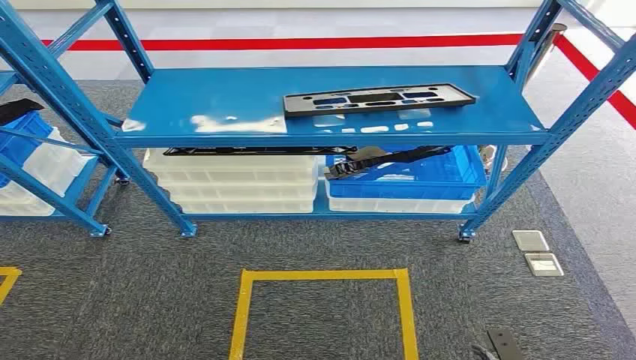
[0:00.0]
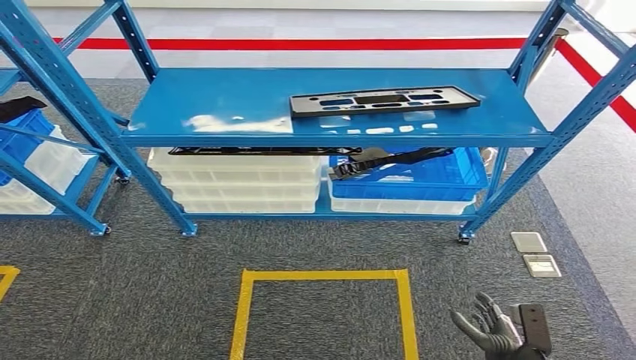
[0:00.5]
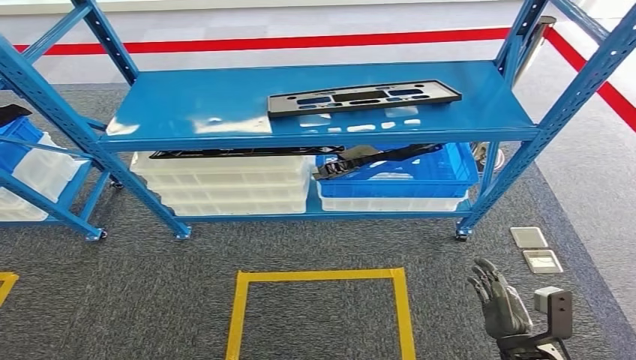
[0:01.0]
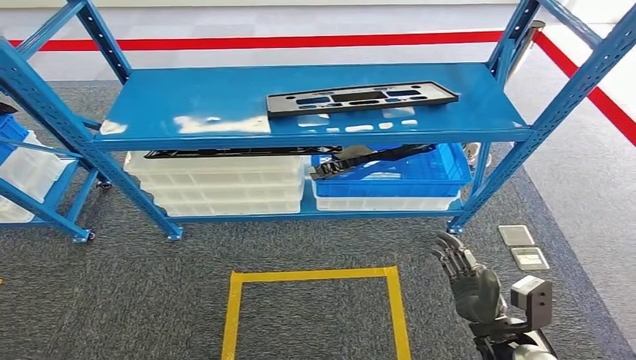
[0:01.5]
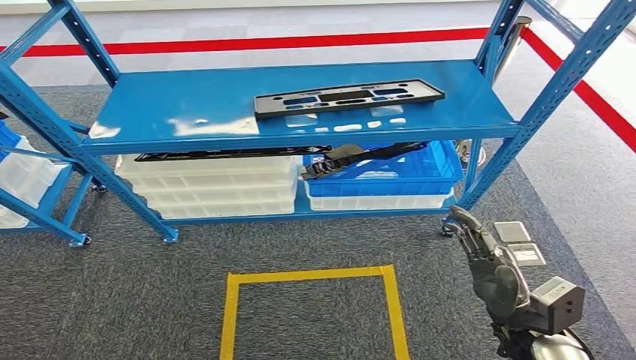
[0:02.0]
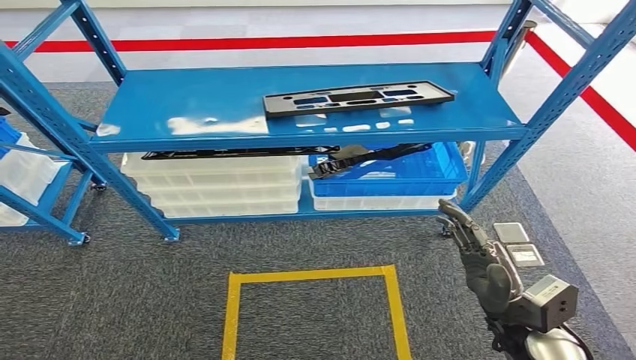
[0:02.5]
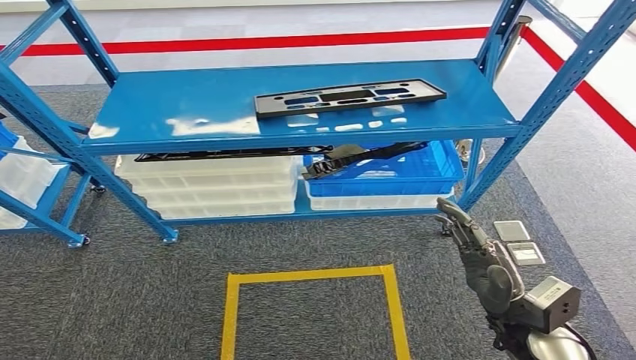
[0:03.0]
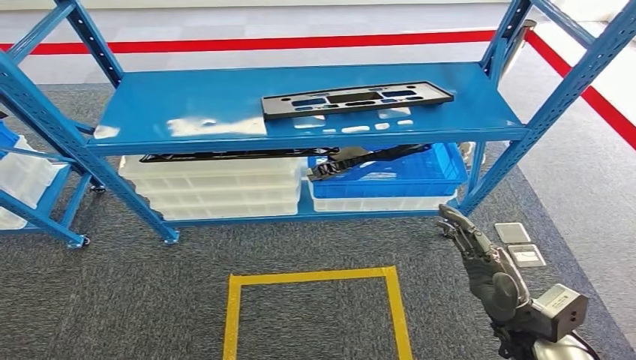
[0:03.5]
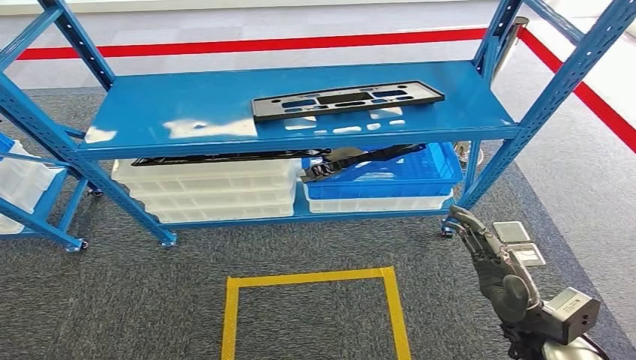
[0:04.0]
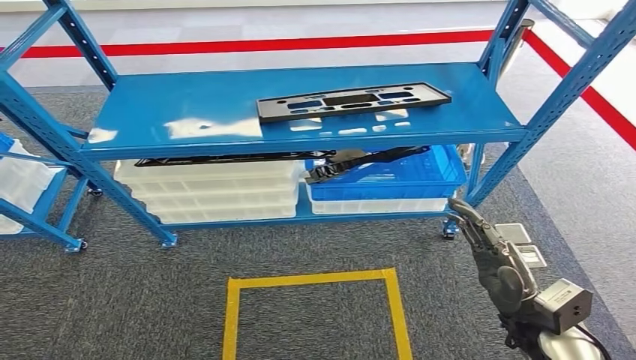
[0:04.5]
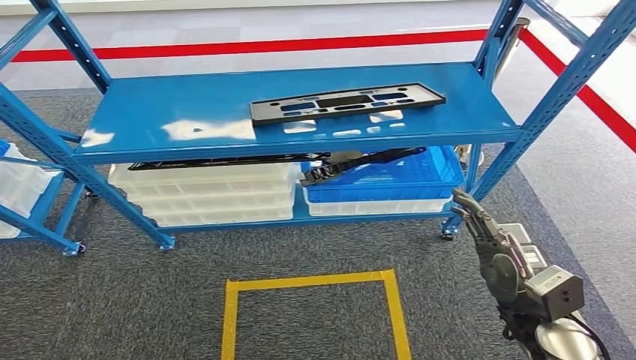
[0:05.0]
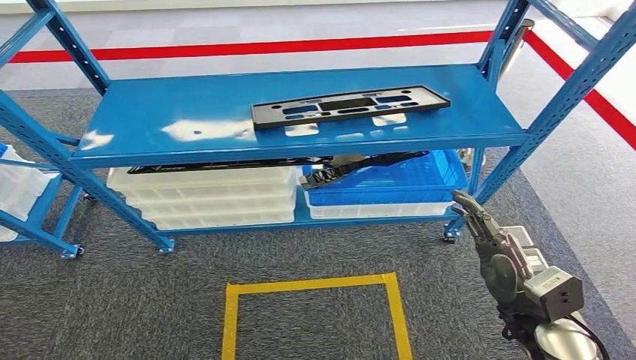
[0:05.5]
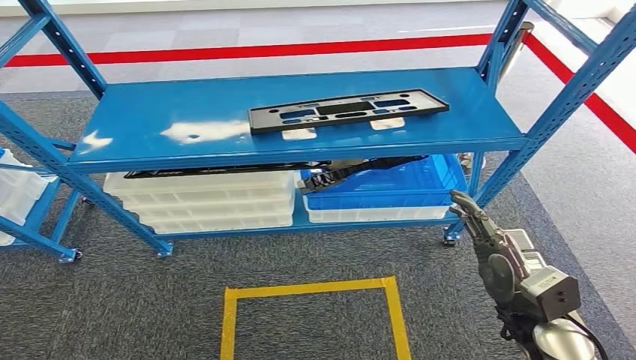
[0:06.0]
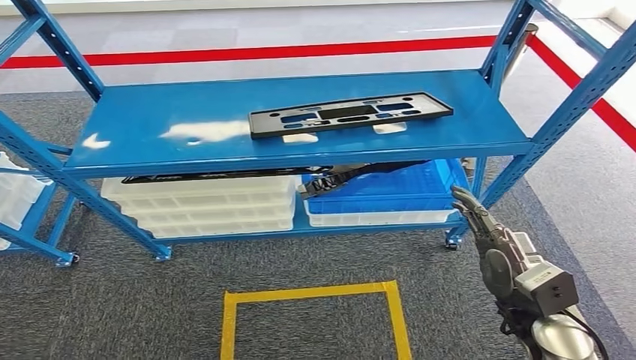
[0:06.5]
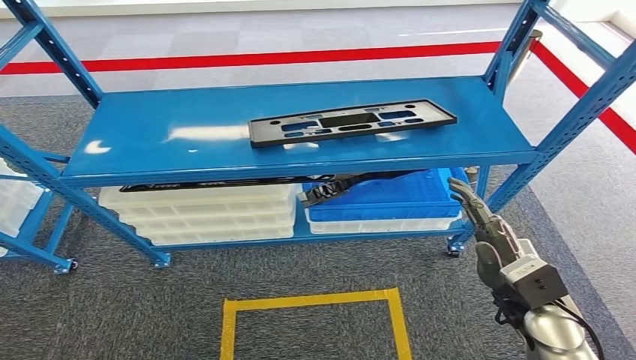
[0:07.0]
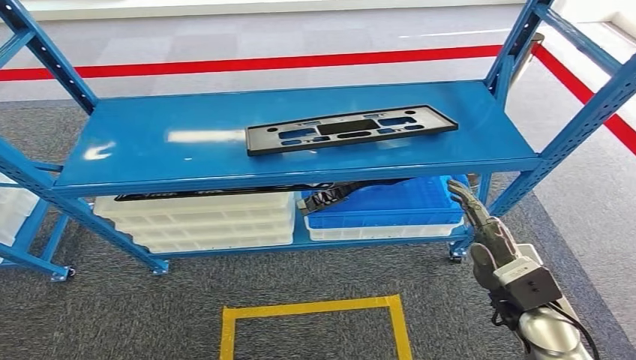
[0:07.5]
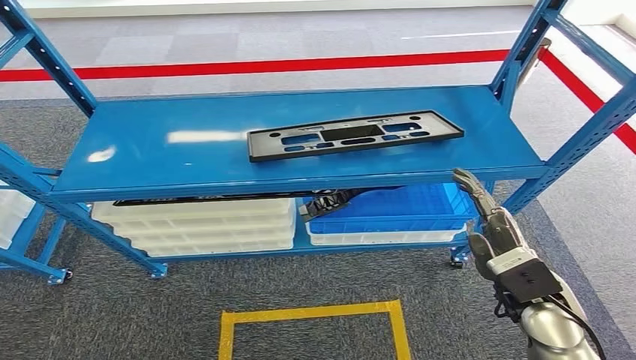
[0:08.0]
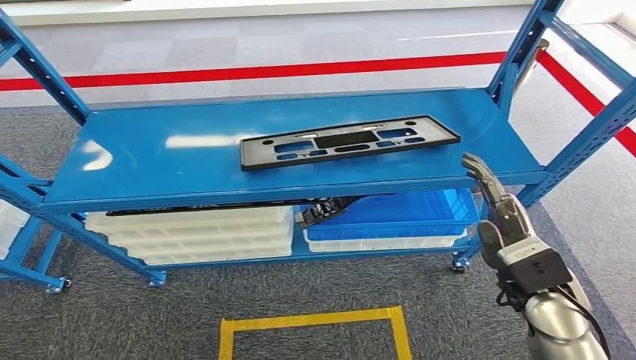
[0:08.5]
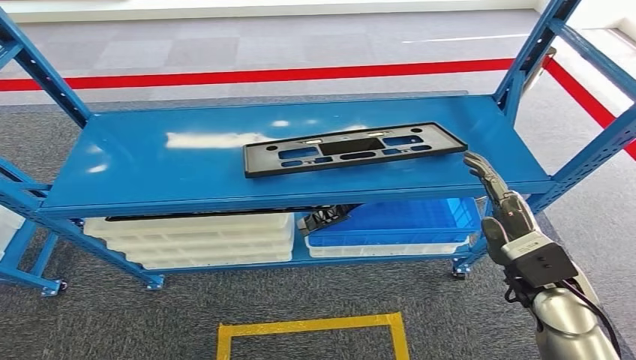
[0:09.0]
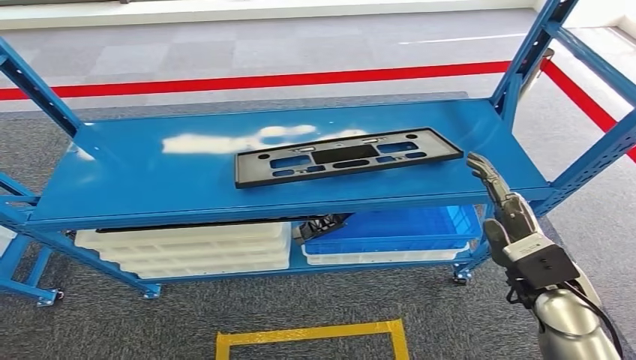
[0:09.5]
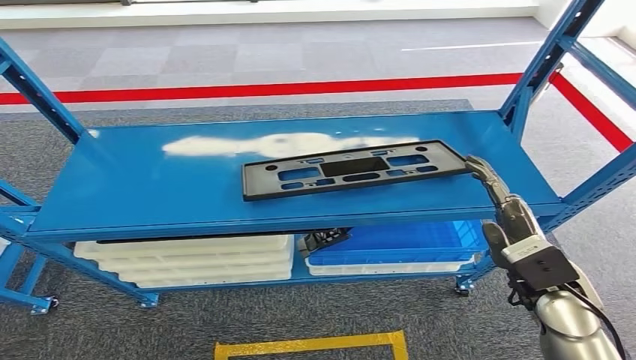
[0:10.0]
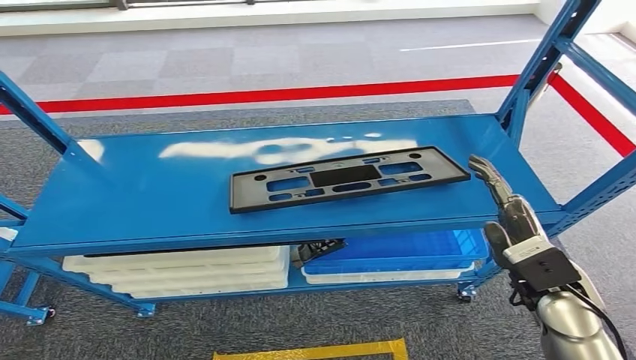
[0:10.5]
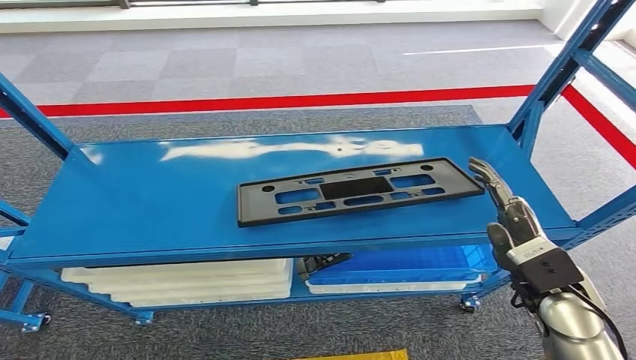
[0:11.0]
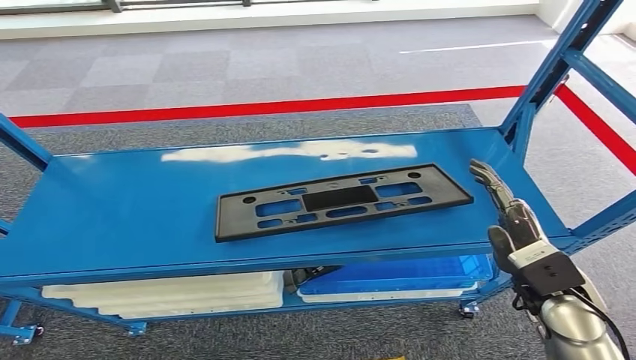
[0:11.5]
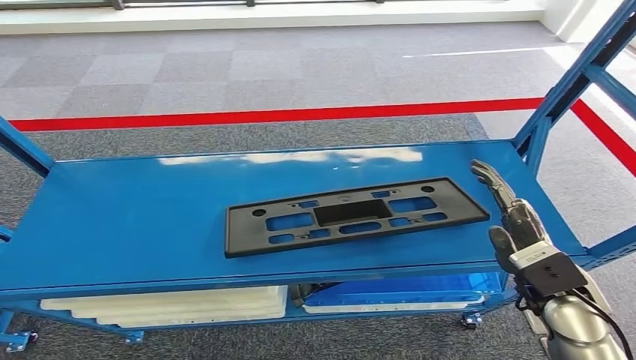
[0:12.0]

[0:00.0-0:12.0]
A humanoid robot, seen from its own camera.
0:02.0 to 0:04.0: The hands make only small movements.

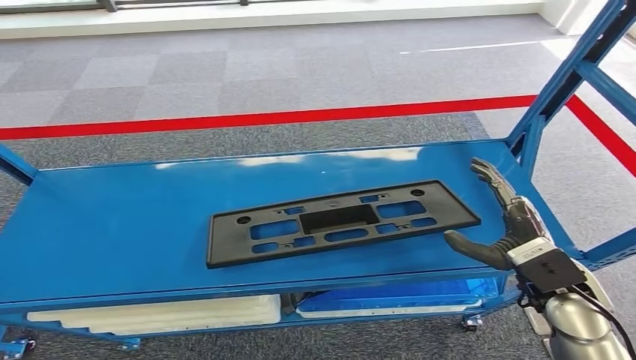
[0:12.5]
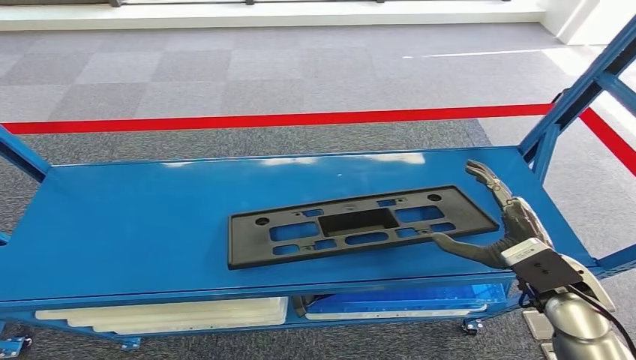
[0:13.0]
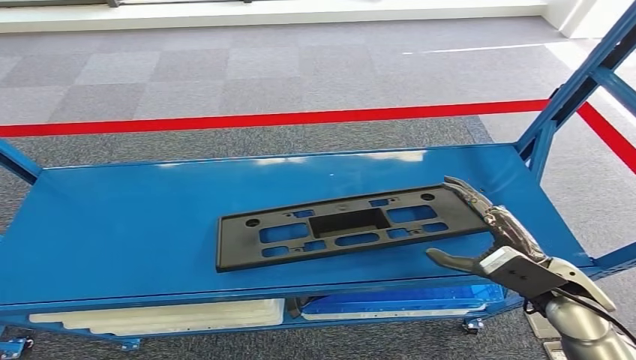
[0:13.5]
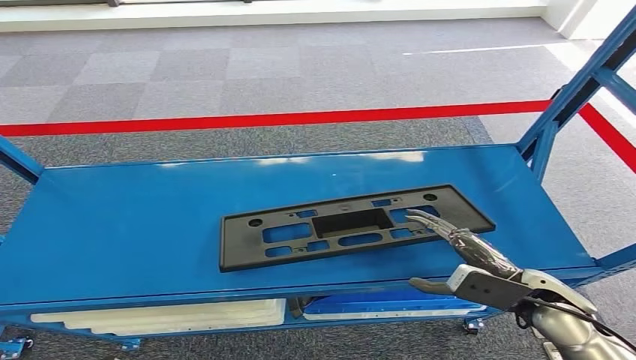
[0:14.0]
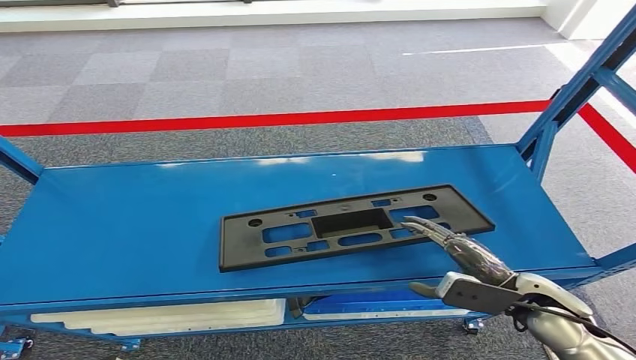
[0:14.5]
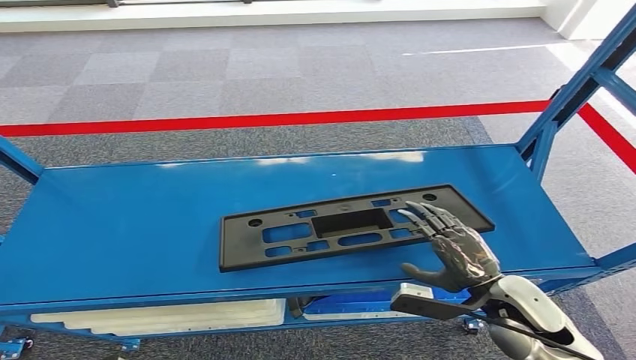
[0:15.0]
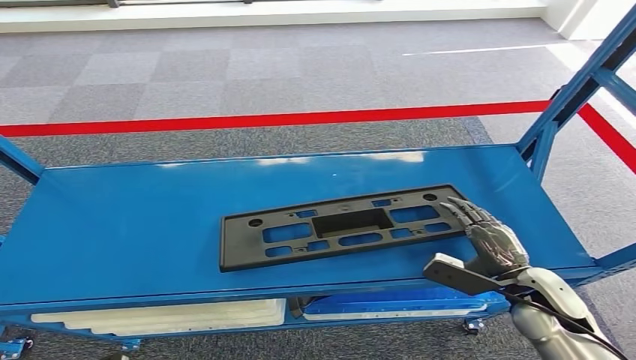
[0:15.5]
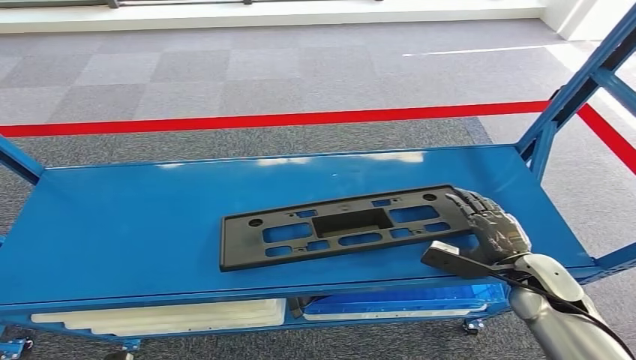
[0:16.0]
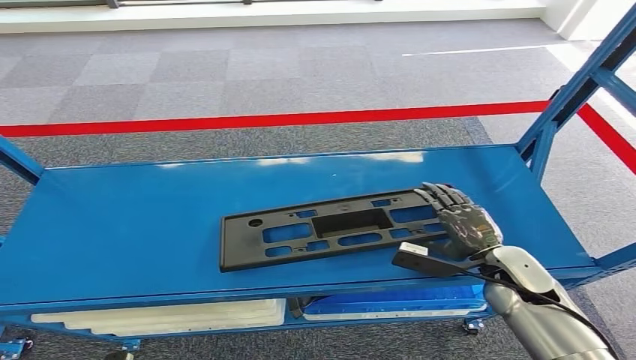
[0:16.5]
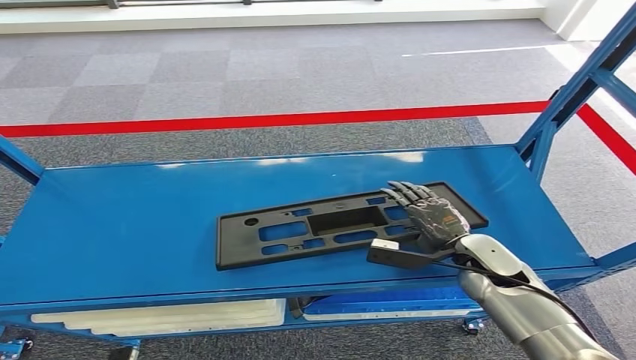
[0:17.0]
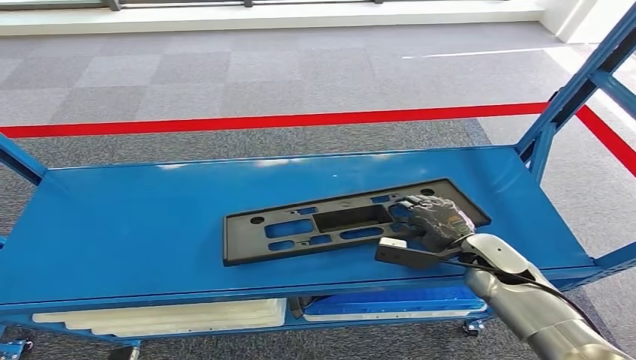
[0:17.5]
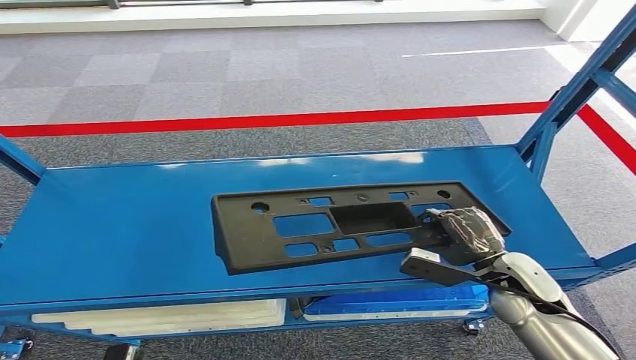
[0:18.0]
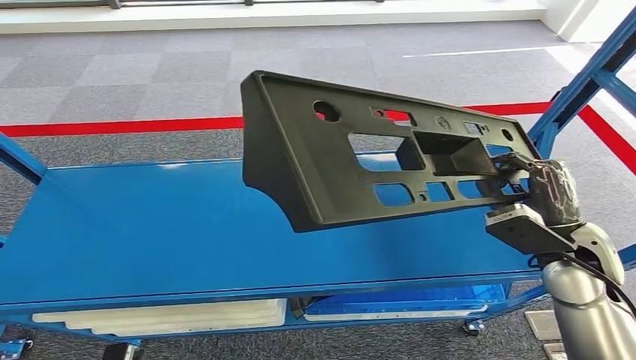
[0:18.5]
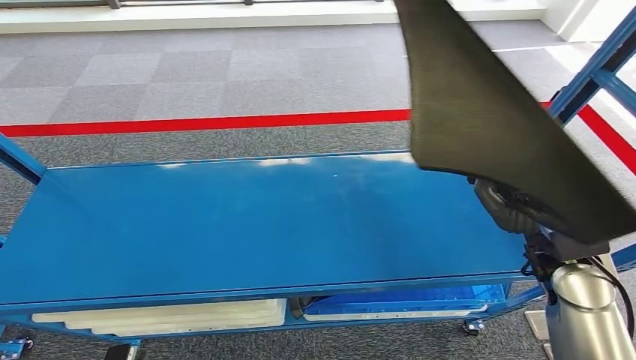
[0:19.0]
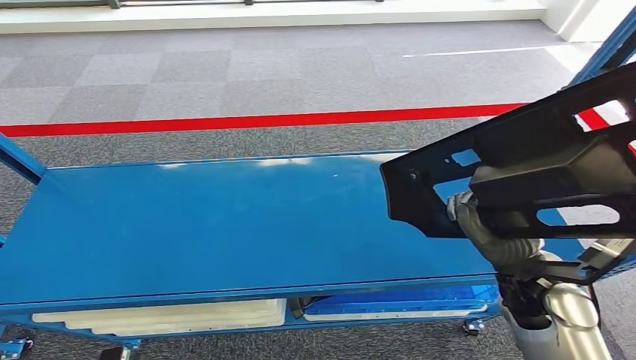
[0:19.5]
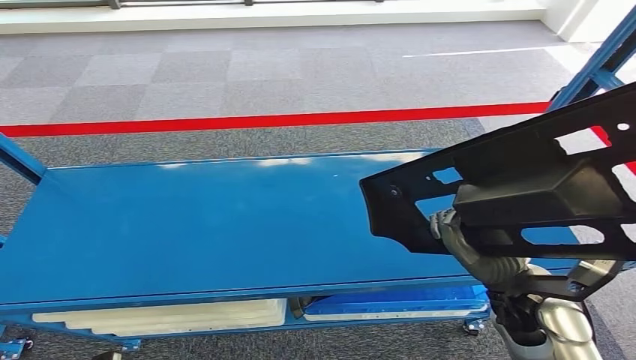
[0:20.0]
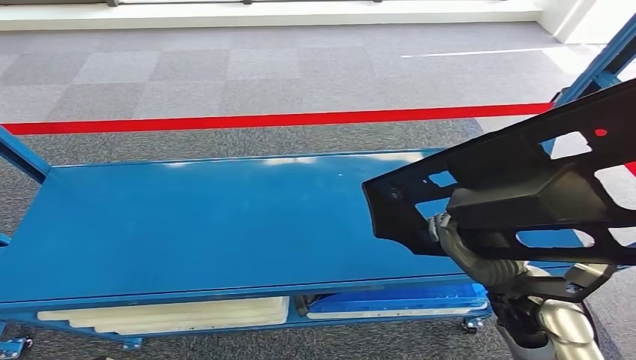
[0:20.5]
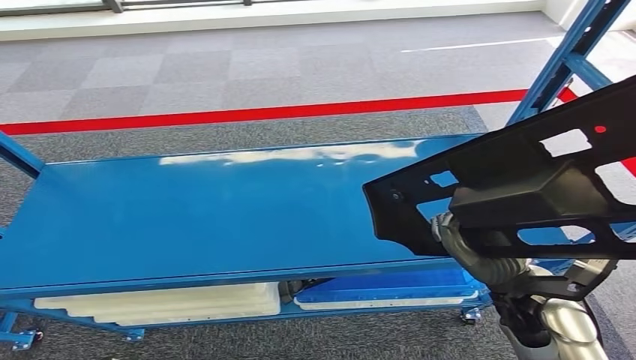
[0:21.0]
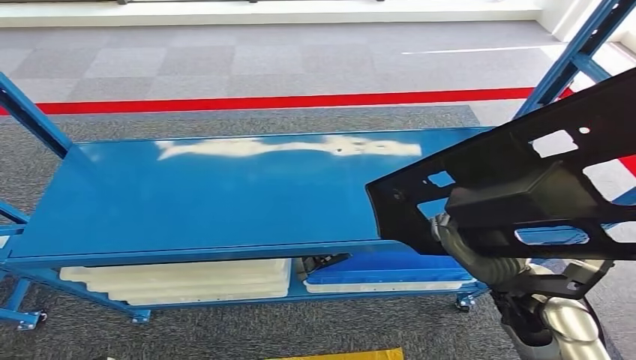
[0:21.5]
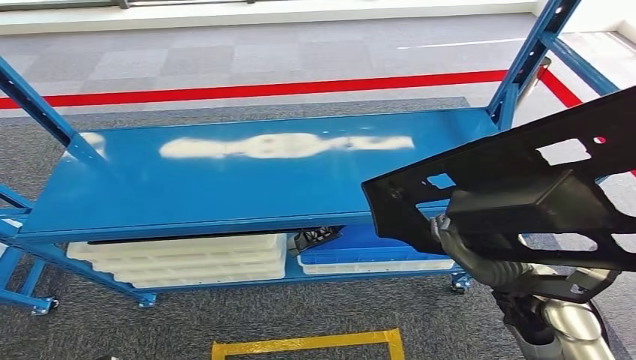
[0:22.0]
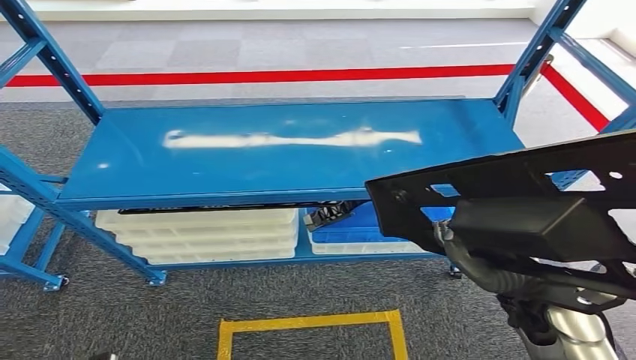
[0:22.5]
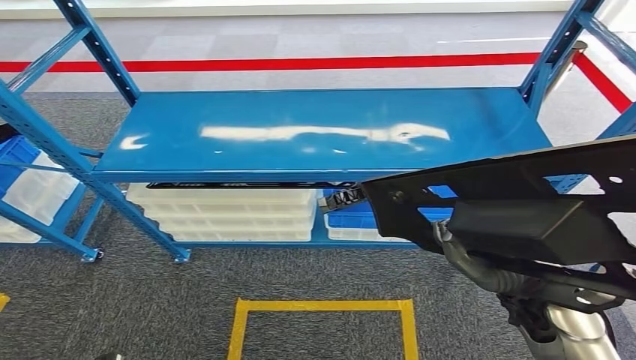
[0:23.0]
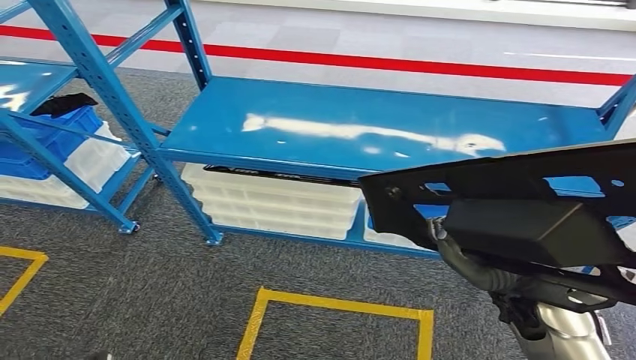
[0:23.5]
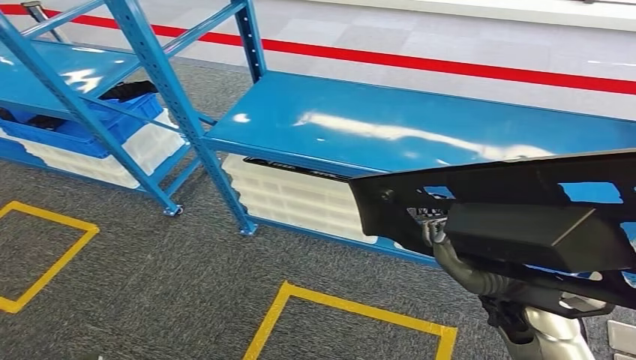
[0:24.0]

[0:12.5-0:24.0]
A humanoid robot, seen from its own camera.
Step, 0:12.5 to 0:18.5: Pick up the small component from the shelf.
0:14.5 to 0:16.5: The right hand moves forward, roughly 5 cm.
